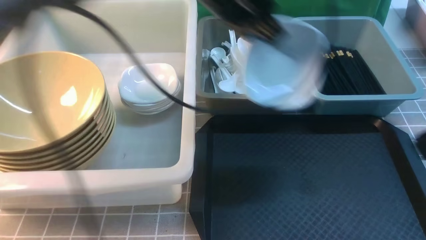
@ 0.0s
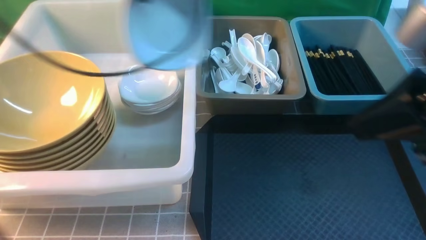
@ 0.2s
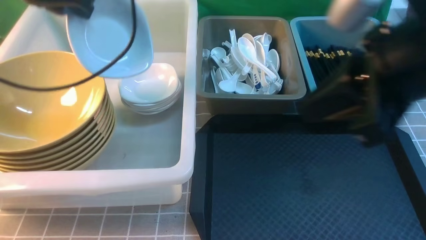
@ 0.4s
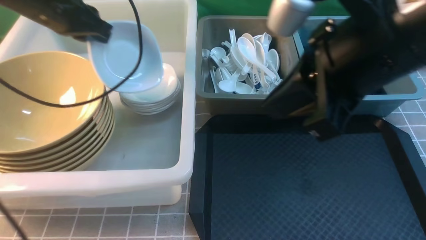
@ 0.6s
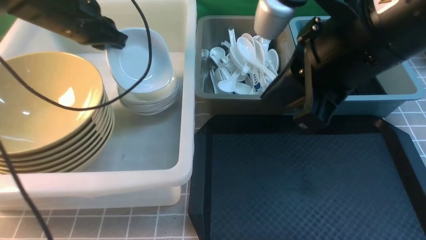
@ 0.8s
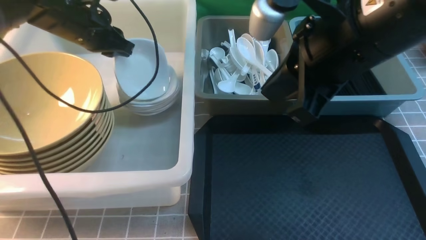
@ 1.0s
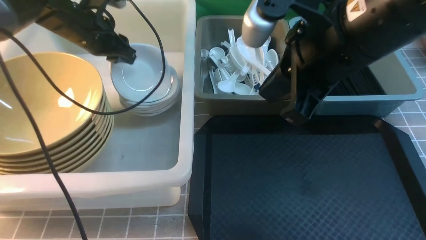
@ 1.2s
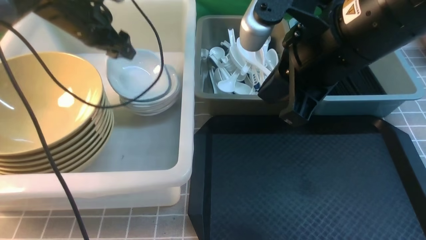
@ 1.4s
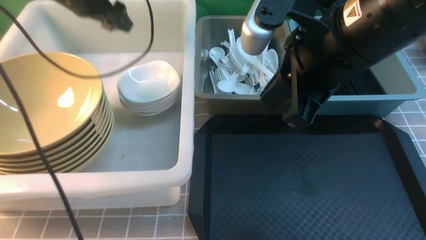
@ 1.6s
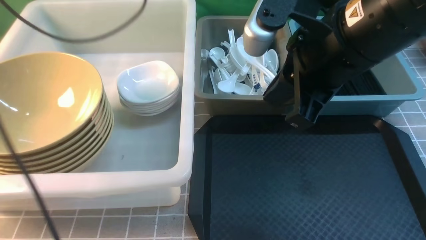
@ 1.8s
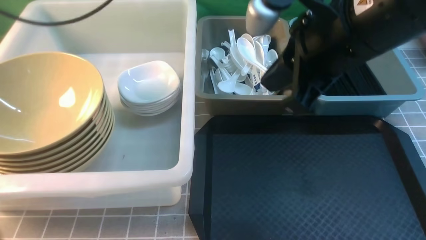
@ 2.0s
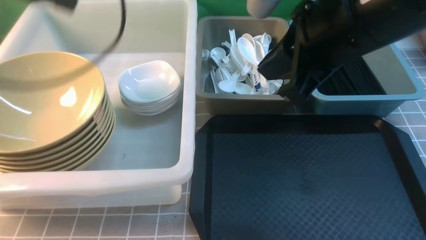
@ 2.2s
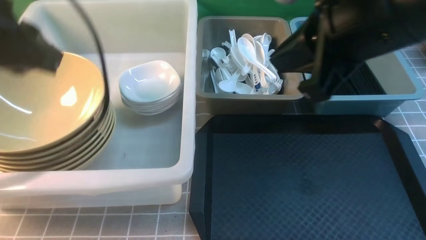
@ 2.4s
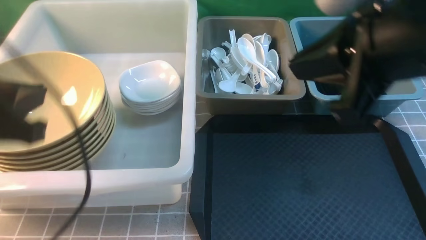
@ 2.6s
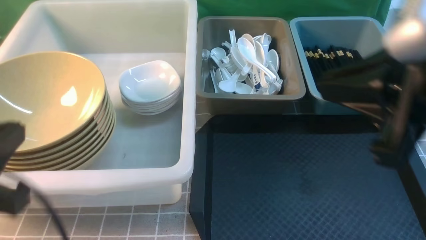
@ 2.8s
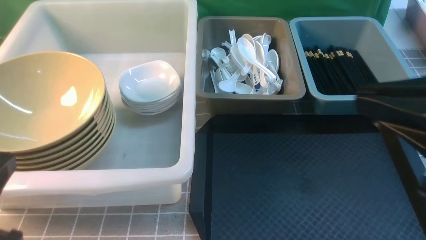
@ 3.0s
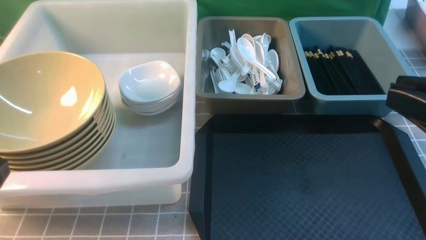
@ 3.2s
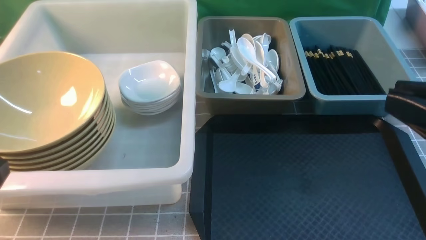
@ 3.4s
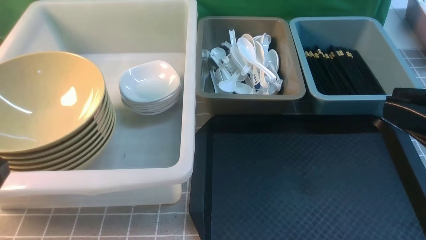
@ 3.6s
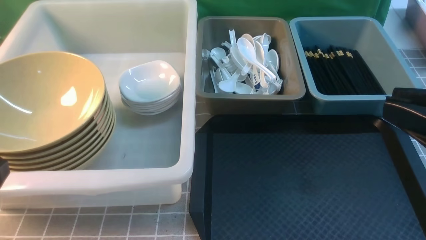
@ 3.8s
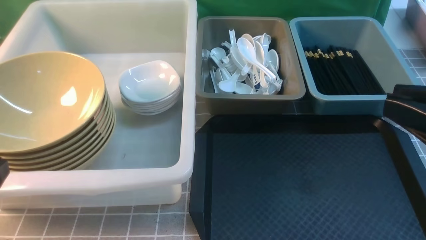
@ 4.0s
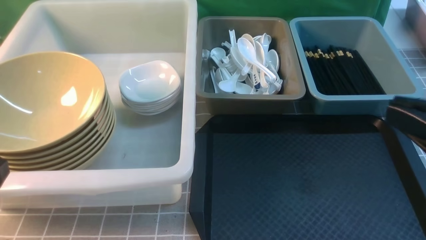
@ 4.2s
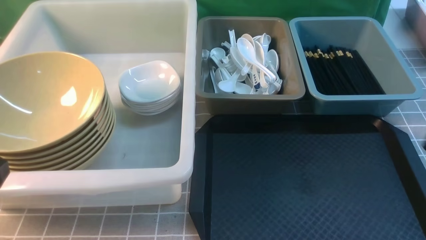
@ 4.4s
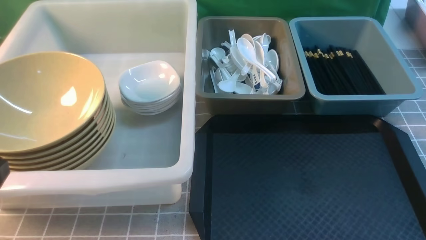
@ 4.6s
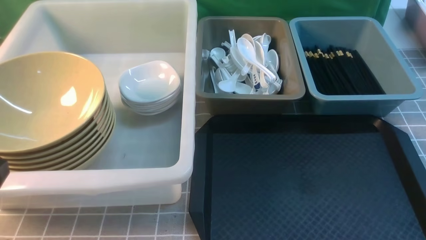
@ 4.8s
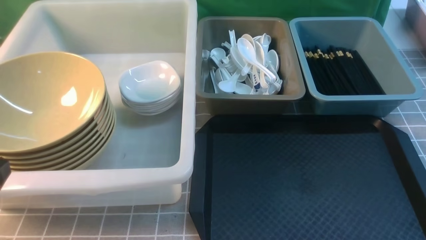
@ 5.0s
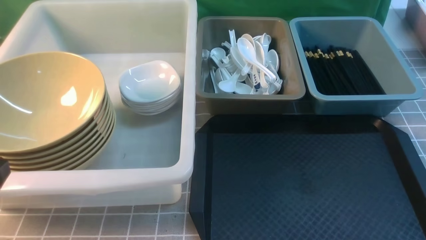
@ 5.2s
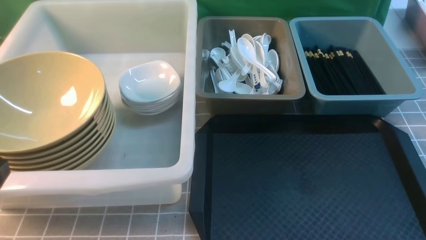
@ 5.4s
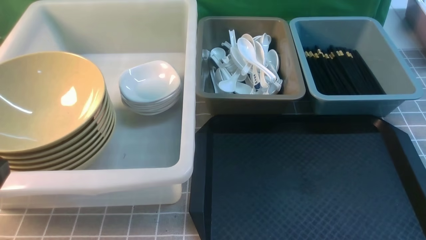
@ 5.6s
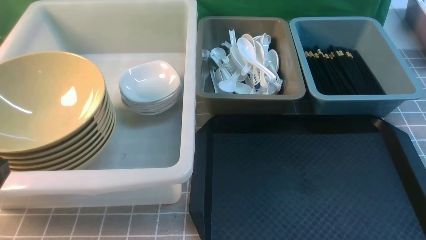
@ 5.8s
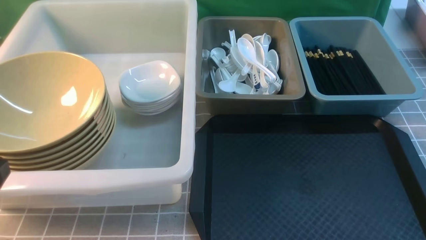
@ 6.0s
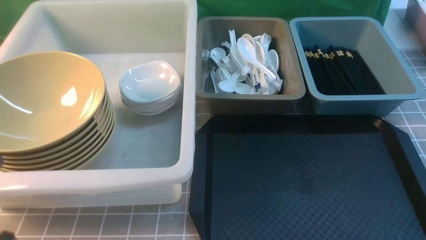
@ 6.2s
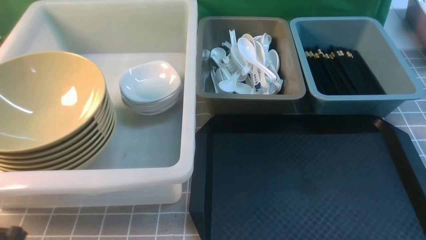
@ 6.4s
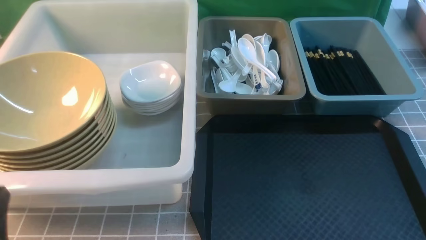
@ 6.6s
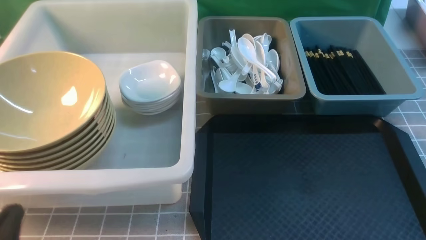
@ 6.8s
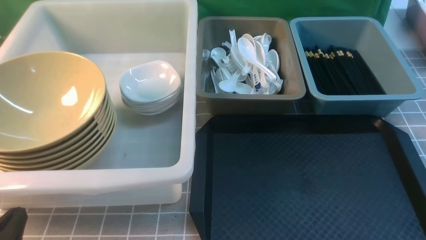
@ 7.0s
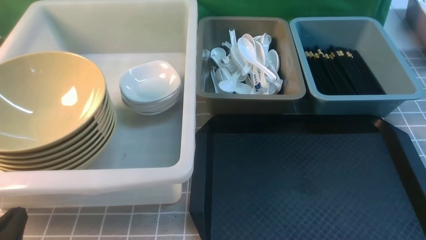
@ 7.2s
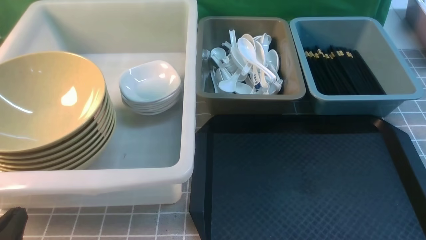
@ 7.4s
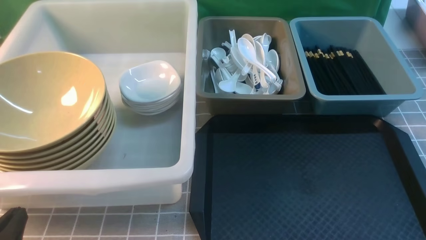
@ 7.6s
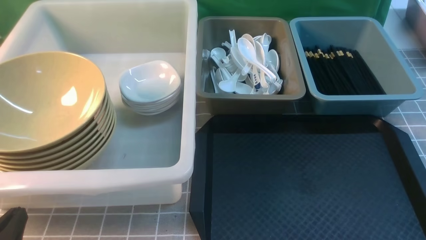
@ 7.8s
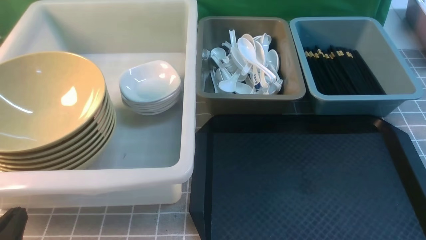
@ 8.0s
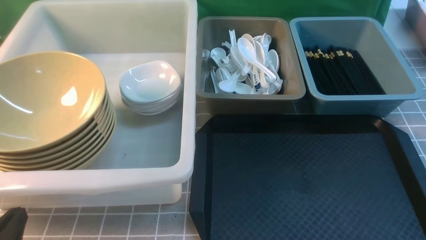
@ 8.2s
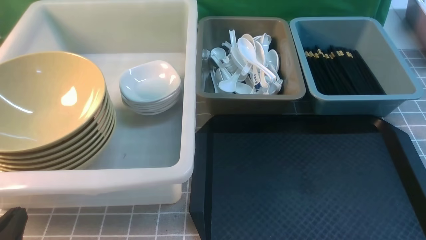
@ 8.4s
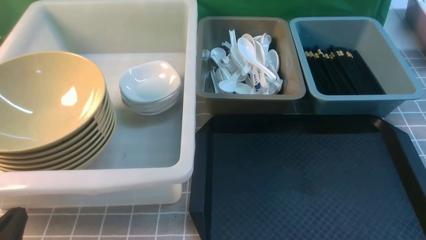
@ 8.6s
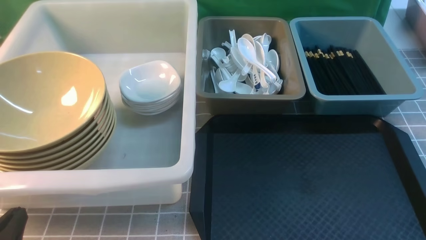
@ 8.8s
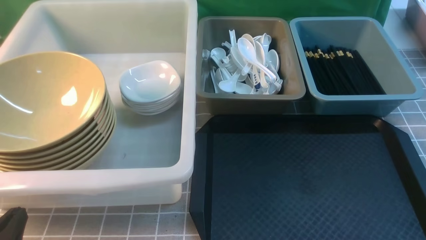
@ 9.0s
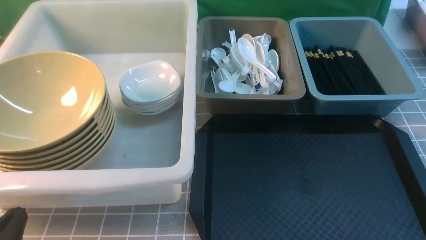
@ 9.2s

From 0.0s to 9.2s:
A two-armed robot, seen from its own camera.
Task of the whole recording: on grey table put chopsticks spoon bowls plates into blue grey white boxes.
Step, from 0.0s to 1.8s: use the left arm to put the plate into the large storage box on the left.
From 0.0s to 1.6s: Both grippers travel together to the left and forward, about 20 cm. The left gripper opens its fingers.
From 1.6s to 3.0s: The left gripper shifts some 40 cm backward, and closes up; the right gripper heads backward and to the right, covering approximately 15 cm.
From 3.0s to 4.6s: The right gripper travels downward and to the right by about 20 cm.
From 6.2s to 7.6s: The left gripper goes roughly 10 cm downward.
From 7.6s to 9.2s: Both grippers stay about where they are.
